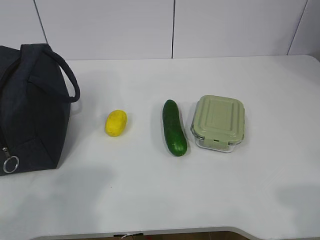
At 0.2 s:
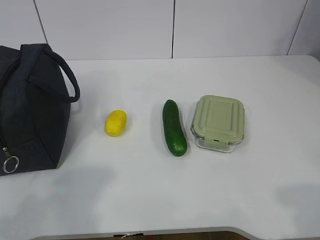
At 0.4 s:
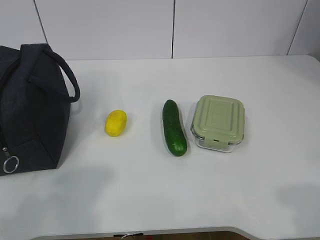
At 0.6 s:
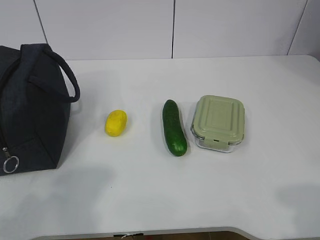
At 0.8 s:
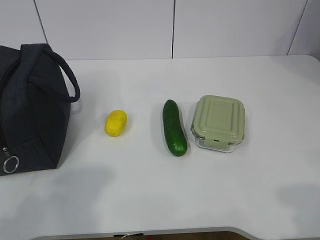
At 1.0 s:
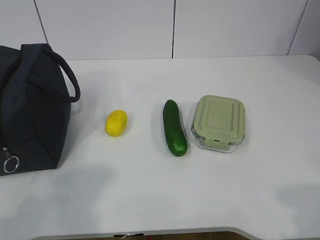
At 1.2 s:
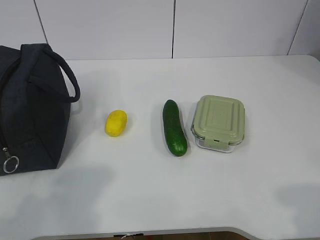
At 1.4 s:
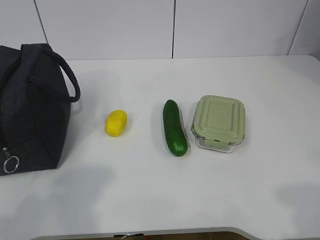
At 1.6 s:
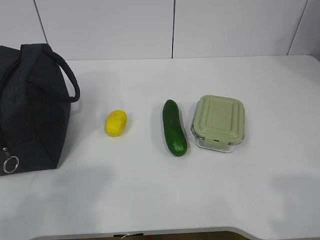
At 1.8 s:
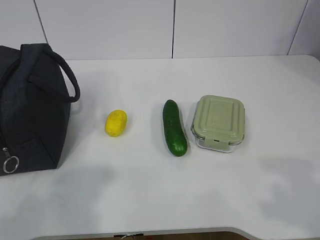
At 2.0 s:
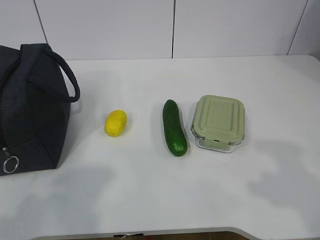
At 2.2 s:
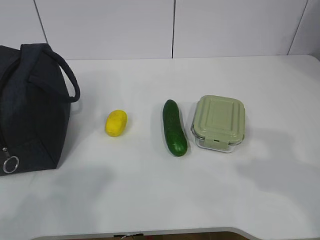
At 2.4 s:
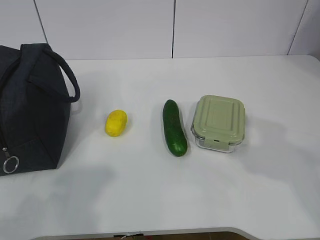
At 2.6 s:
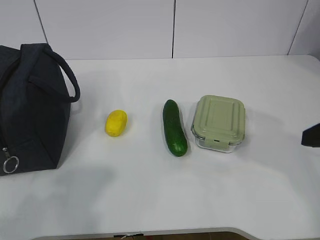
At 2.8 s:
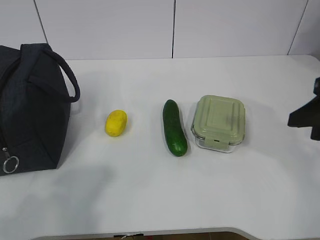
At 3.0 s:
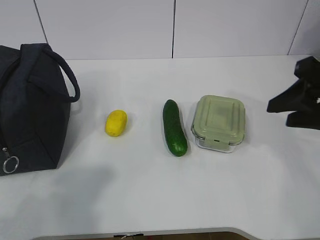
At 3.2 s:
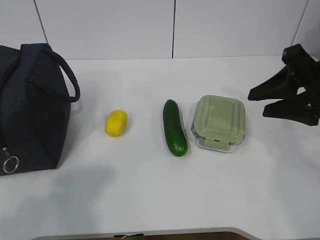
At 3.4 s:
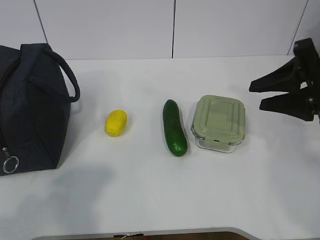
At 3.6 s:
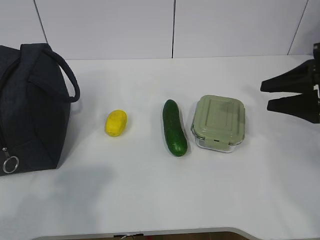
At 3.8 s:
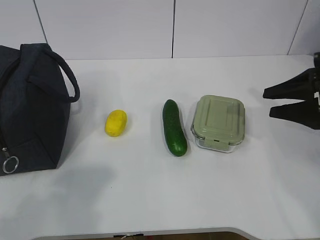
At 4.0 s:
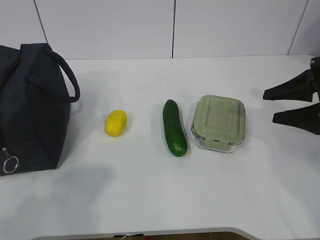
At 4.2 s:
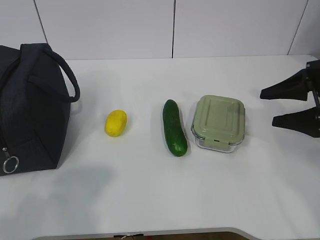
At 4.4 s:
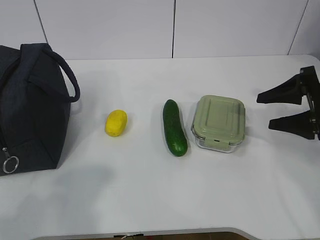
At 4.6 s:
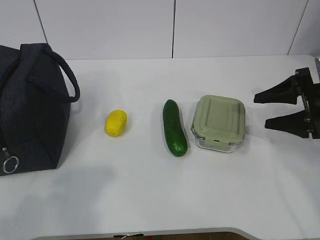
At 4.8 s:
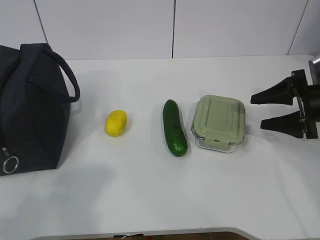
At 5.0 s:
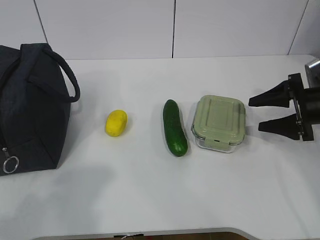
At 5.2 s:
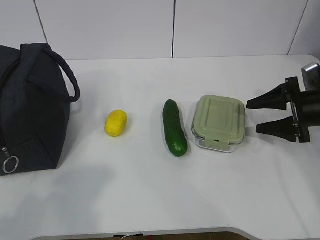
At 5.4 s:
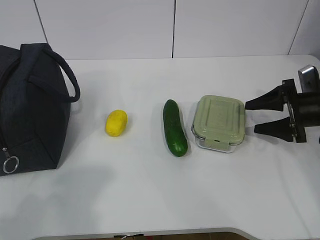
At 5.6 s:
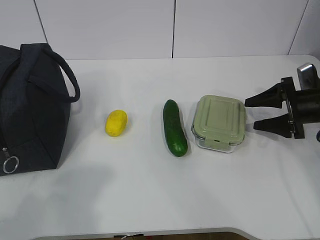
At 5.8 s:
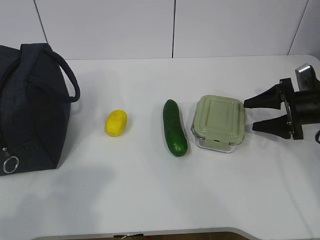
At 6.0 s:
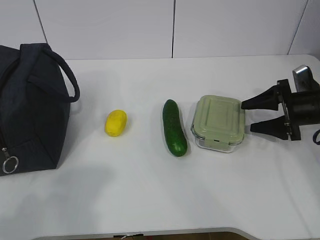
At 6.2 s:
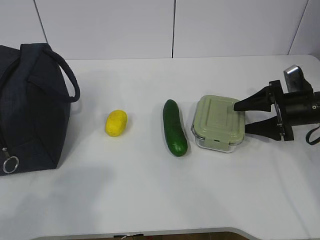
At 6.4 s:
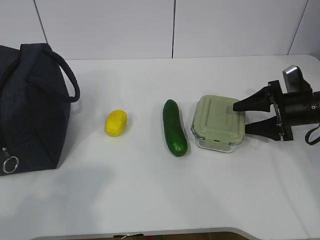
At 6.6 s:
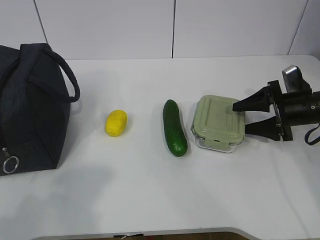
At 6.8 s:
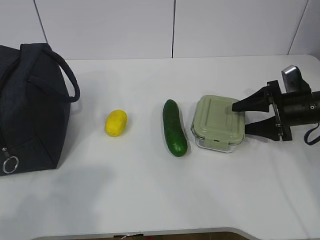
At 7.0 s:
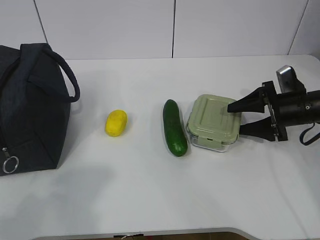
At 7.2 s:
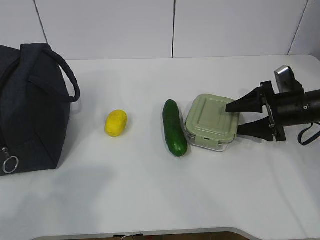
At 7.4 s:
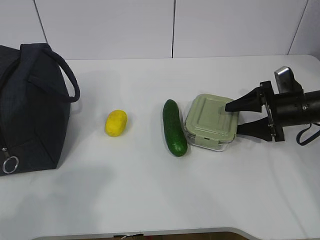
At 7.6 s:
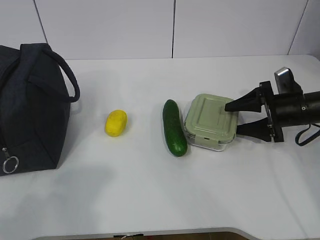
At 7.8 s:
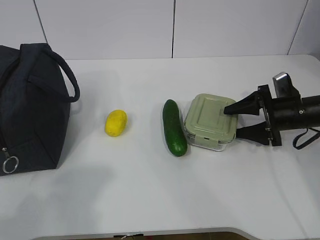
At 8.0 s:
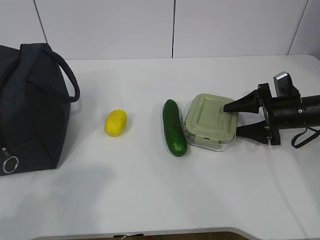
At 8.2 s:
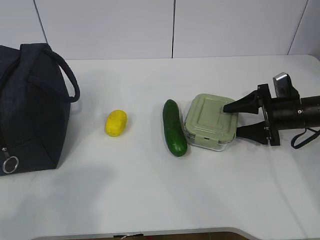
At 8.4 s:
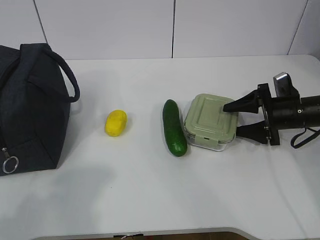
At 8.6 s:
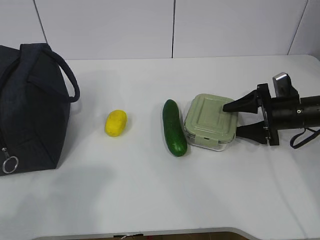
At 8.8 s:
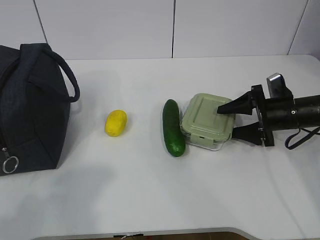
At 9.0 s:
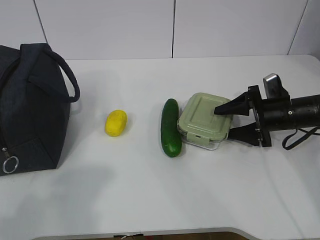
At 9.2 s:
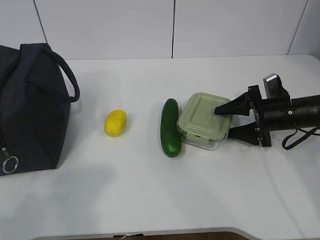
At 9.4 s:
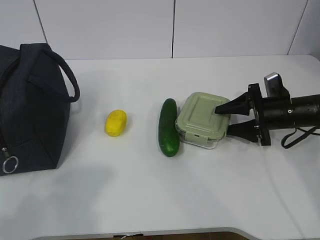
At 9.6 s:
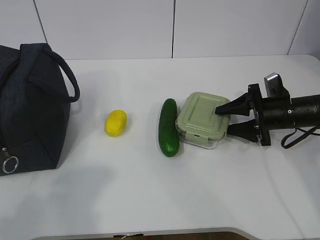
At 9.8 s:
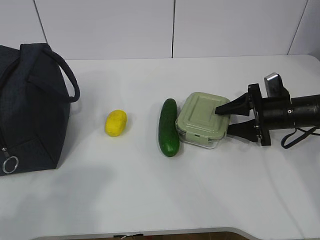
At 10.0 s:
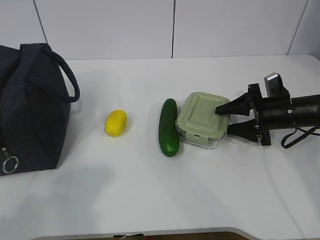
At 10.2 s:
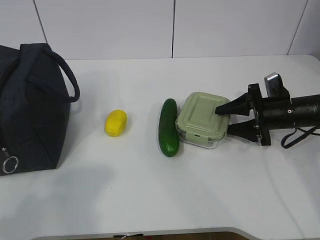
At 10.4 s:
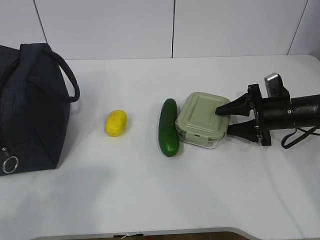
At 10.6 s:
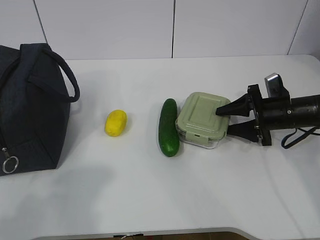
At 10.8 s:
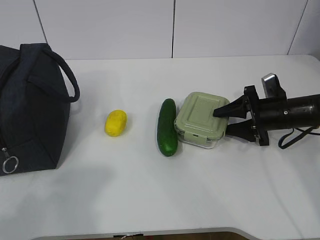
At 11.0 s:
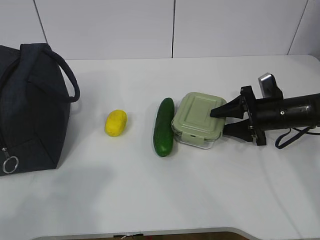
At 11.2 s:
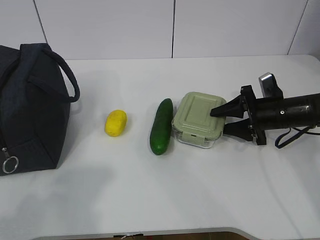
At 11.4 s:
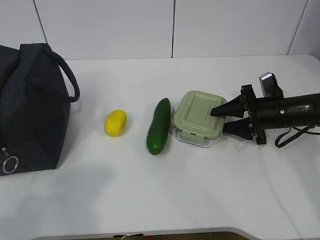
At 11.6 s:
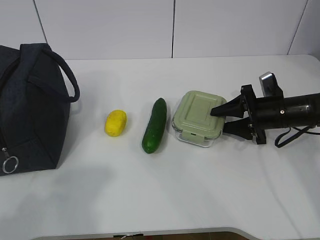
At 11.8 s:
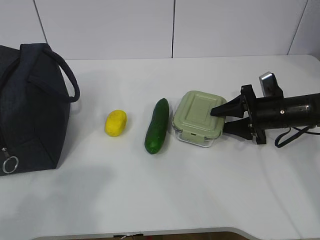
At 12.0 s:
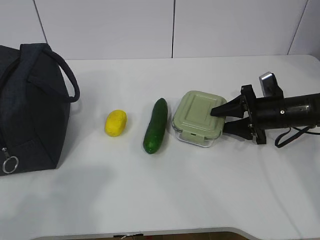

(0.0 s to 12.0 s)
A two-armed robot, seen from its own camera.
Step, 0.0 s - 11.8 s: Grab the lunch box with your right hand.
1.6 s - 3.0 s: The right gripper shifts roughly 25 cm forward.
3.0 s - 4.4 s: The right gripper goes roughly 15 cm downward, forward and to the right, and opens.
4.4 s - 6.0 s: The right gripper is displaced downward and forward by some 10 cm.
6.0 s - 9.0 s: The grippers move only a little.
9.0 s - 12.0 s: Both grippers stay put.

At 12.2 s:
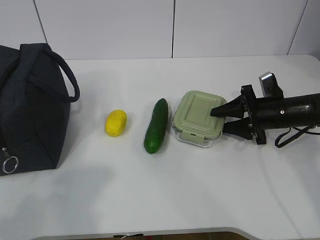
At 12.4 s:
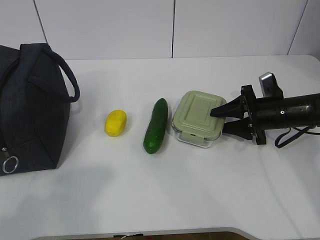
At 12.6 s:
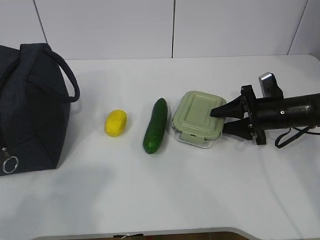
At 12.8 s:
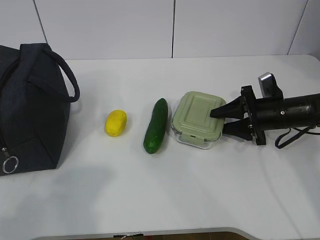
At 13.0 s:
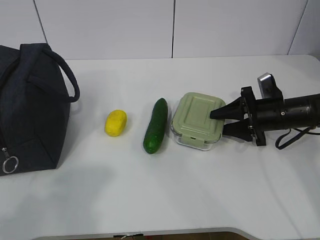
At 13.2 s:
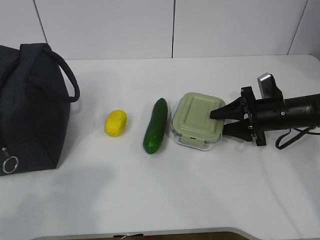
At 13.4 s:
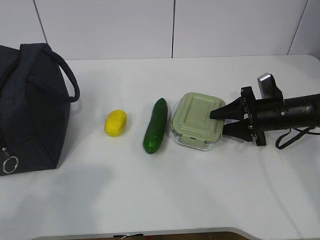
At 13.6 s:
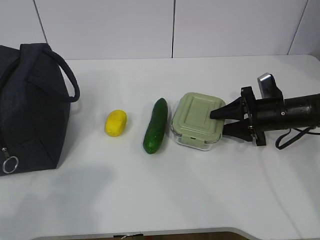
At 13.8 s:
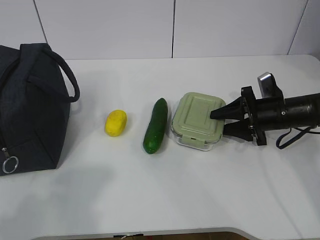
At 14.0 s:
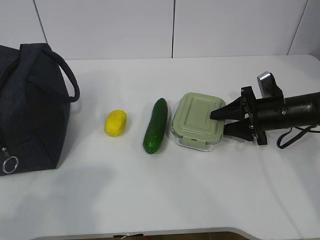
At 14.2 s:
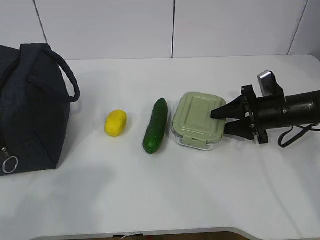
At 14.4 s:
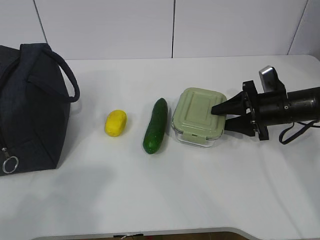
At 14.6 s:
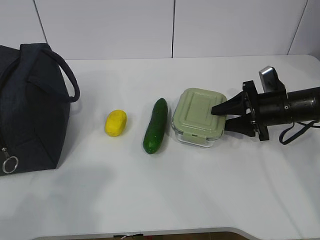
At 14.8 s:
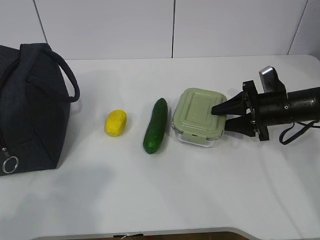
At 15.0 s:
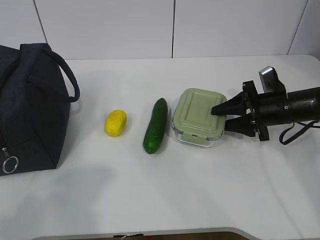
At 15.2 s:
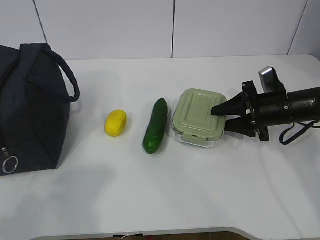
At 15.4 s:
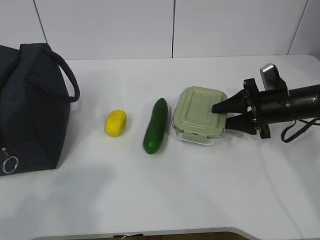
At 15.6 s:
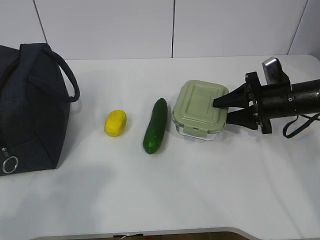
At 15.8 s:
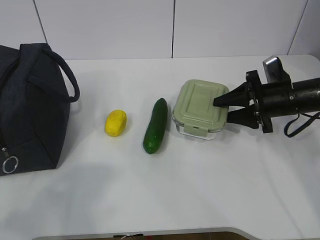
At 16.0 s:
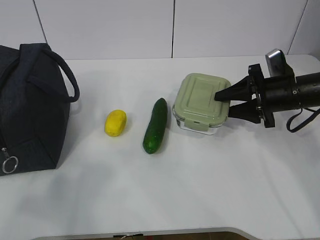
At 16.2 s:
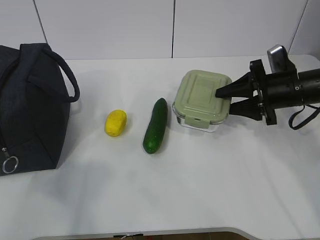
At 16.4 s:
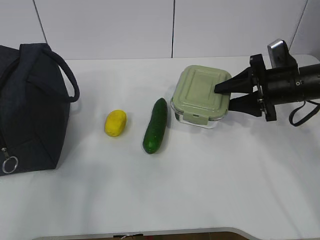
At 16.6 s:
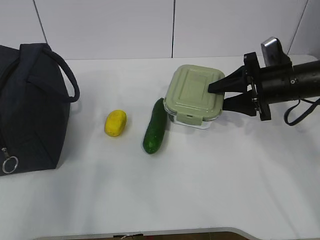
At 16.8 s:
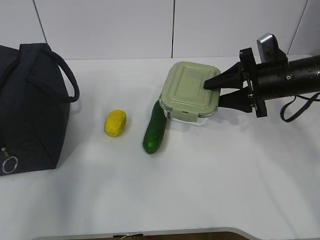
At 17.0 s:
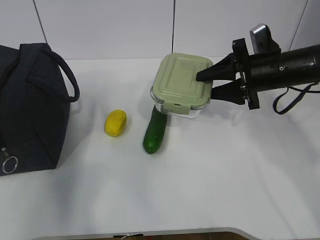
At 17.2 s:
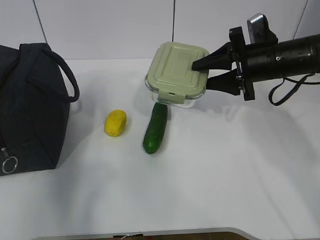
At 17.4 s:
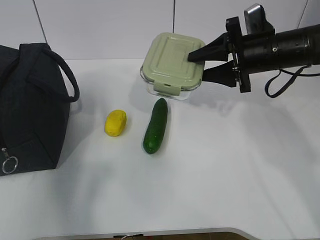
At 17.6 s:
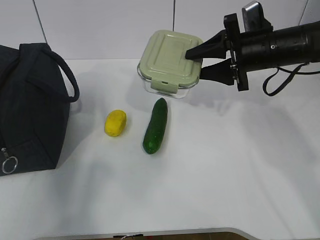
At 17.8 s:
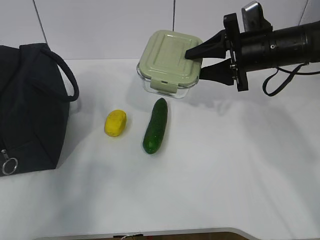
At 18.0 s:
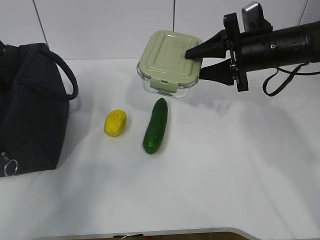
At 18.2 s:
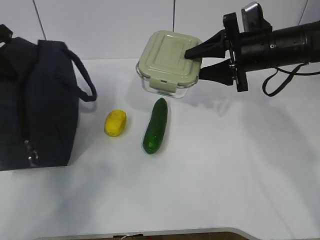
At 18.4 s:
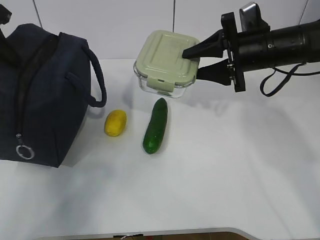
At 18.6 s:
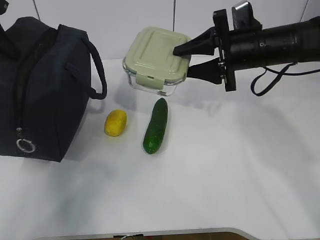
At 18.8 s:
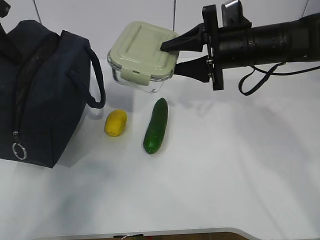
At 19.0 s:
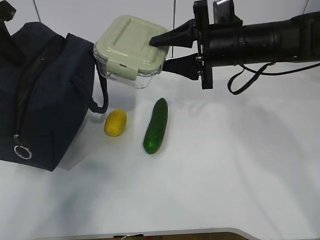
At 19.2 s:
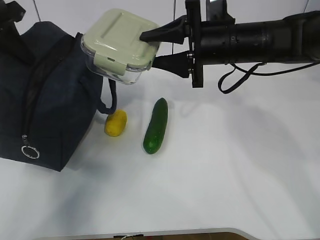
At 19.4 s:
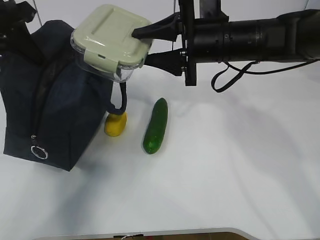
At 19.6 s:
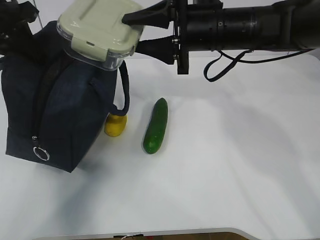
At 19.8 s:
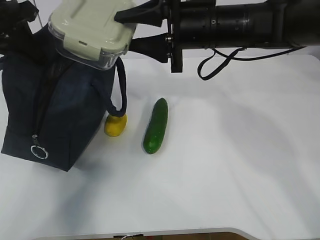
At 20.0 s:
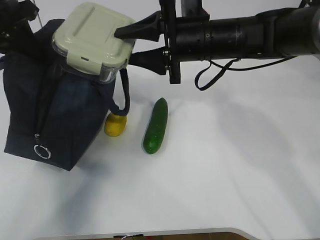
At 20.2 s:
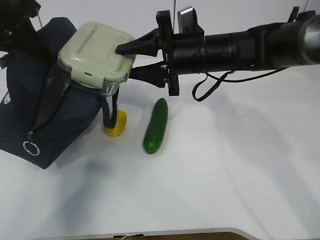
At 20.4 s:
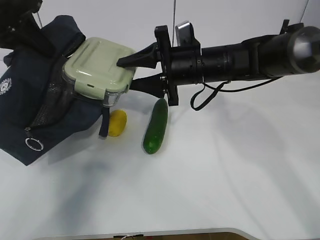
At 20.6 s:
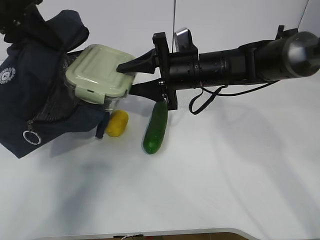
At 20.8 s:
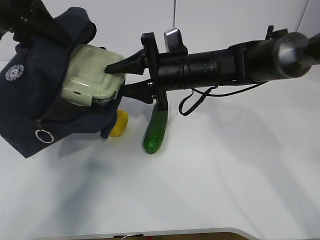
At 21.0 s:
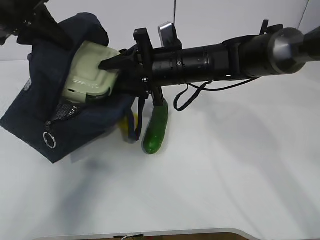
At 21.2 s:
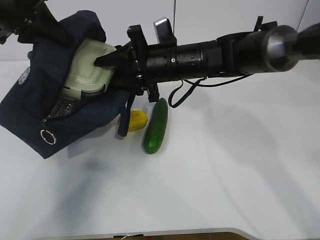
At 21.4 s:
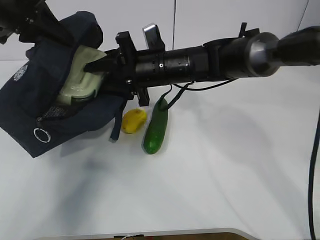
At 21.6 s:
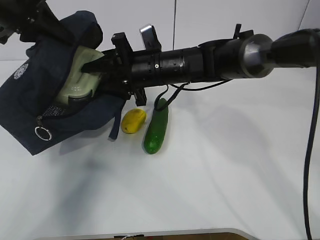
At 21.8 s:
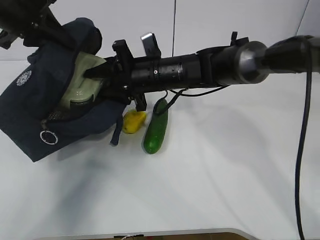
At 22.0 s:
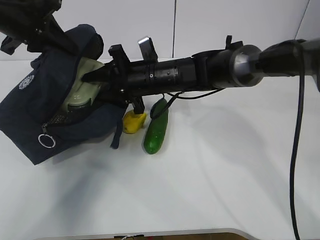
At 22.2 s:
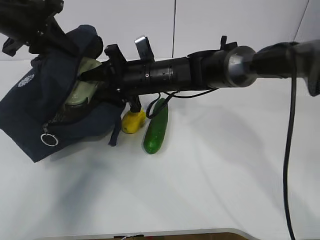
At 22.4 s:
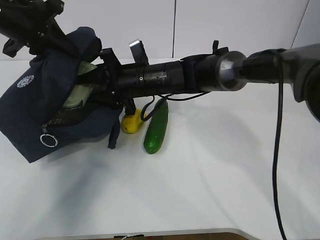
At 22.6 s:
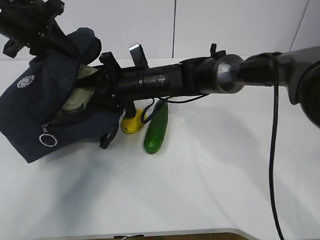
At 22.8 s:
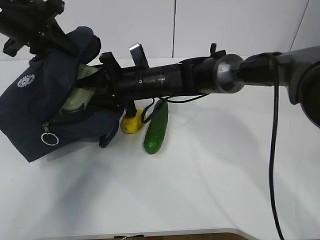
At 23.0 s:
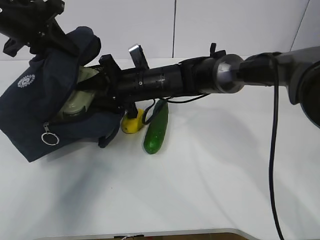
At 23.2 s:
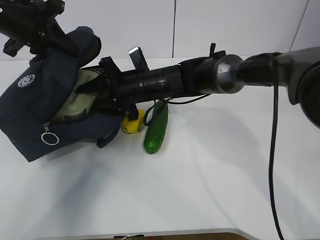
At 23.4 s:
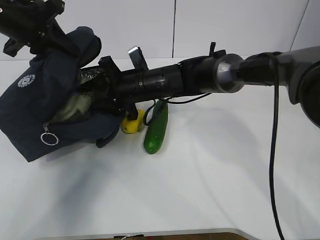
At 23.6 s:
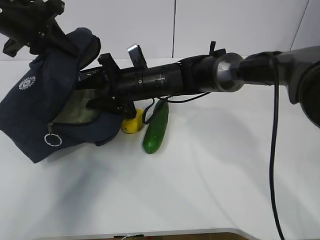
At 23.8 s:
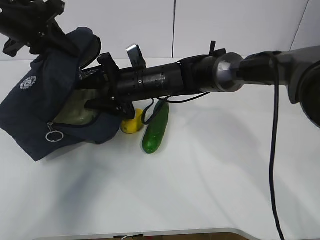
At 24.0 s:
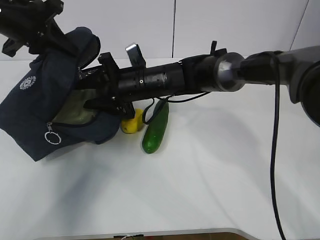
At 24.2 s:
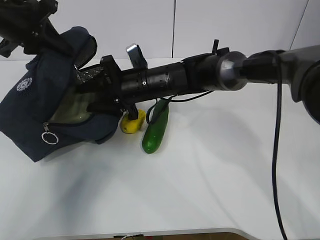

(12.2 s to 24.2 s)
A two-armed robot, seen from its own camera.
Step, 12.2 s - 16.4 s: Grab the lunch bag with your left hand.
Step, 16.8 s - 19.6 s: Place it into the bag with your right hand.
12.2 s - 13.8 s: Both grippers stay put.
13.8 s - 15.2 s: The grippers make only small movements.
15.2 s - 16.6 s: The right gripper heads upward, covering some 5 cm; the left gripper heads forward and upward, covering about 10 cm.
16.6 s - 18.2 s: The left gripper goes about 25 cm forward, and closes up, while the right gripper heads upward, covering approximately 5 cm.
18.2 s - 19.8 s: The right gripper shifts approximately 10 cm to the left. The left gripper goes roughly 5 cm to the right.
19.8 s - 21.2 s: The right gripper heads downward, covering approximately 5 cm.
21.2 s - 22.6 s: The right gripper travels downward and to the left by roughly 10 cm.
22.6 s - 24.2 s: The grippers move only a little.
